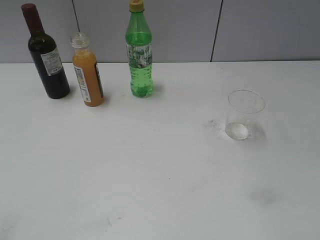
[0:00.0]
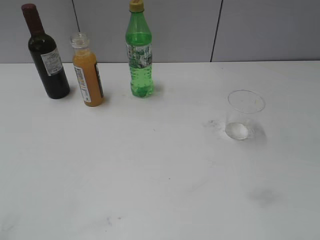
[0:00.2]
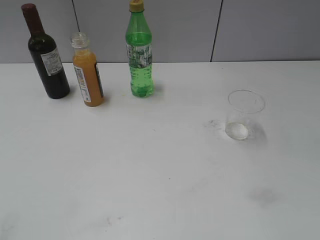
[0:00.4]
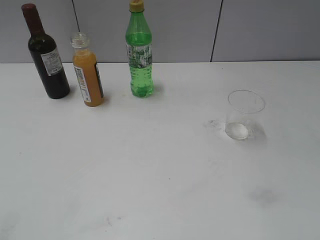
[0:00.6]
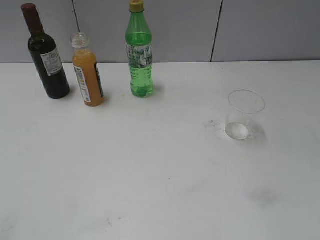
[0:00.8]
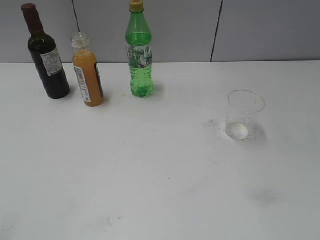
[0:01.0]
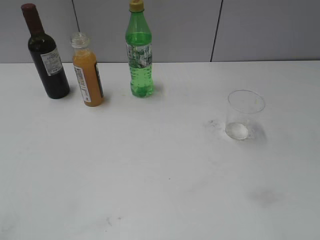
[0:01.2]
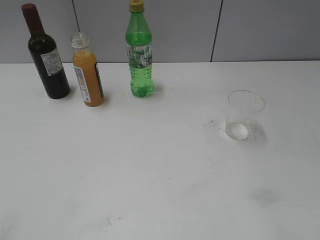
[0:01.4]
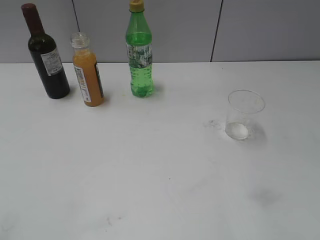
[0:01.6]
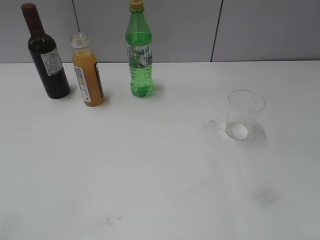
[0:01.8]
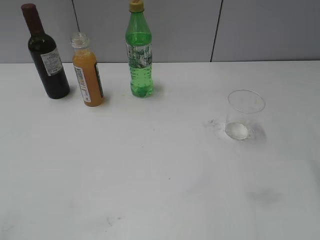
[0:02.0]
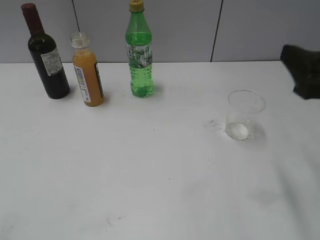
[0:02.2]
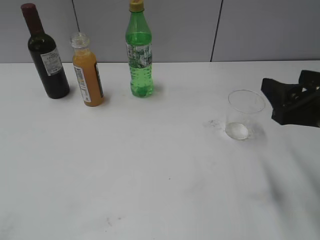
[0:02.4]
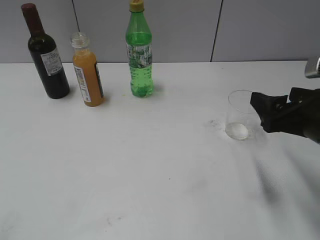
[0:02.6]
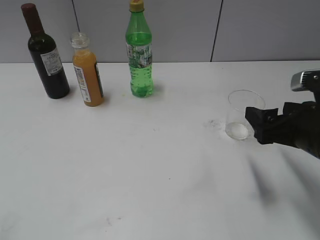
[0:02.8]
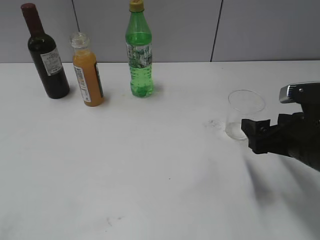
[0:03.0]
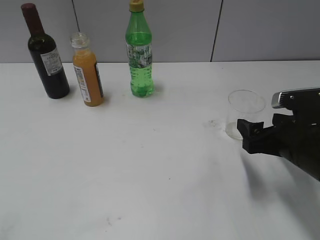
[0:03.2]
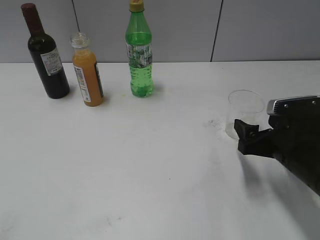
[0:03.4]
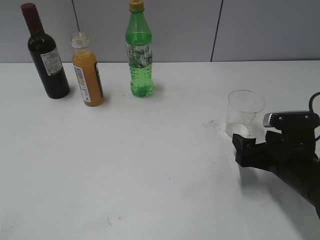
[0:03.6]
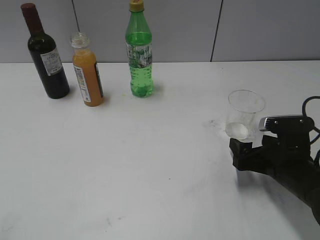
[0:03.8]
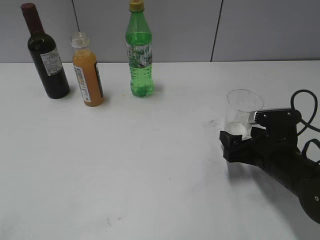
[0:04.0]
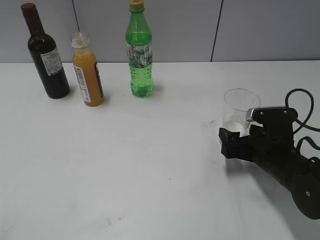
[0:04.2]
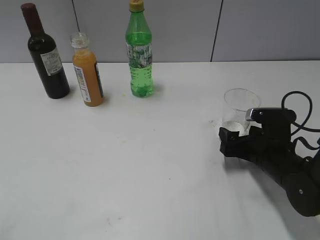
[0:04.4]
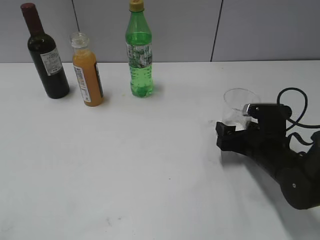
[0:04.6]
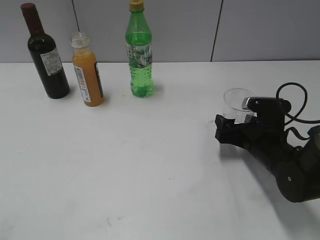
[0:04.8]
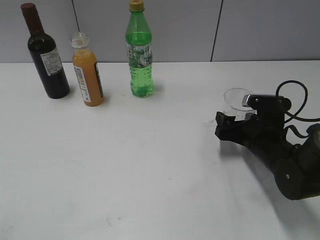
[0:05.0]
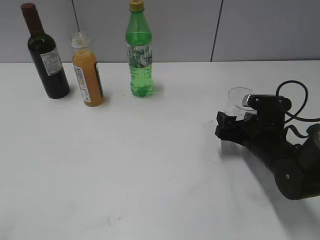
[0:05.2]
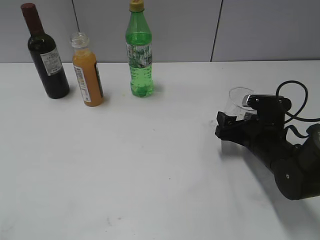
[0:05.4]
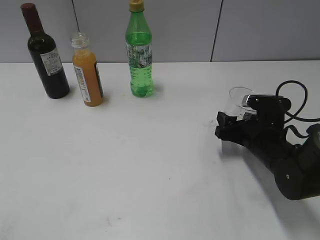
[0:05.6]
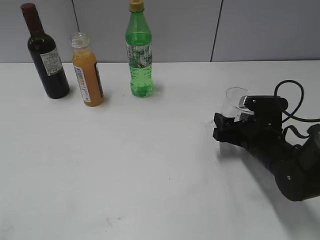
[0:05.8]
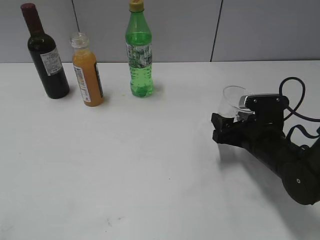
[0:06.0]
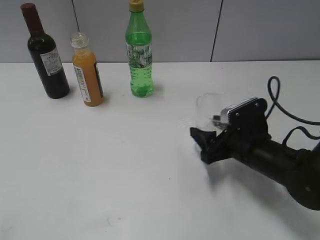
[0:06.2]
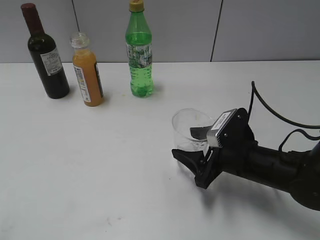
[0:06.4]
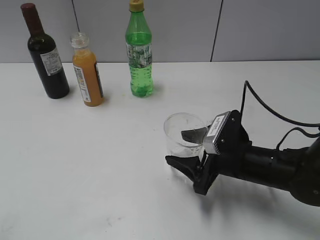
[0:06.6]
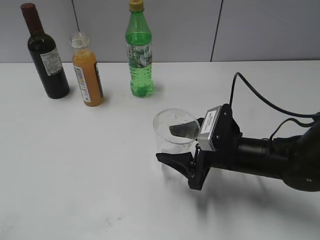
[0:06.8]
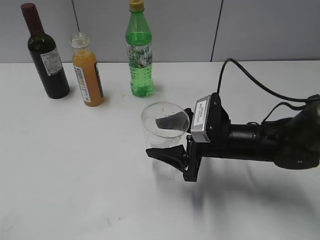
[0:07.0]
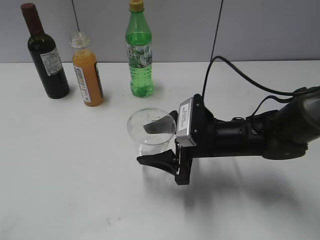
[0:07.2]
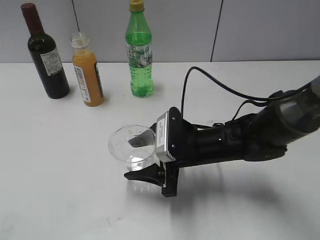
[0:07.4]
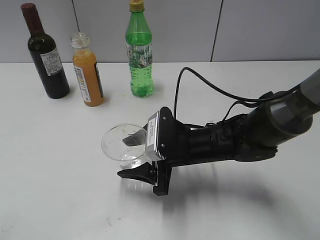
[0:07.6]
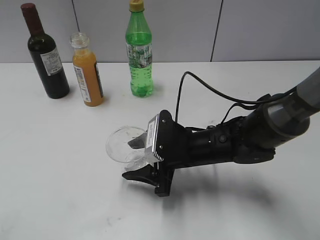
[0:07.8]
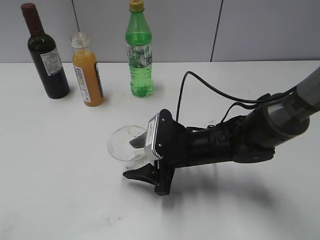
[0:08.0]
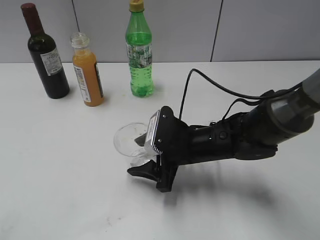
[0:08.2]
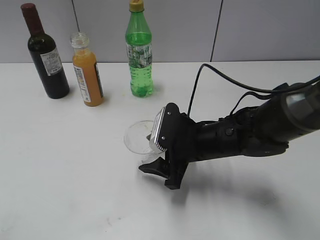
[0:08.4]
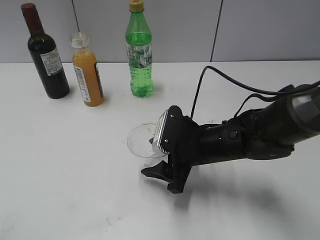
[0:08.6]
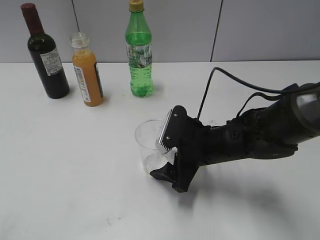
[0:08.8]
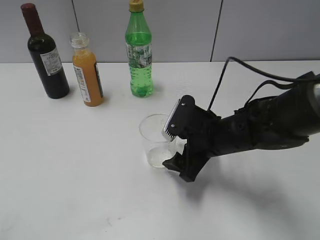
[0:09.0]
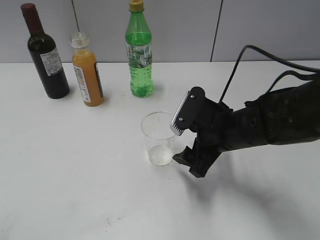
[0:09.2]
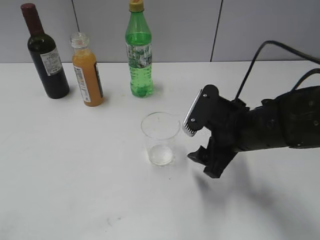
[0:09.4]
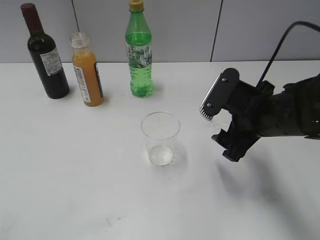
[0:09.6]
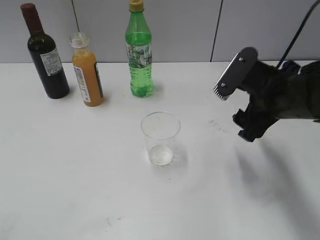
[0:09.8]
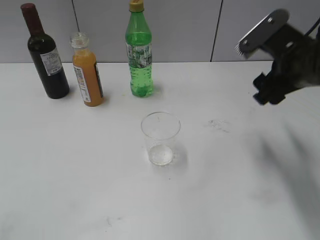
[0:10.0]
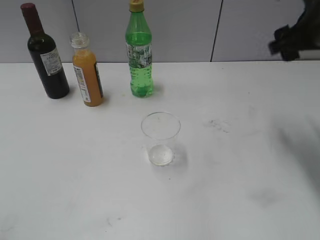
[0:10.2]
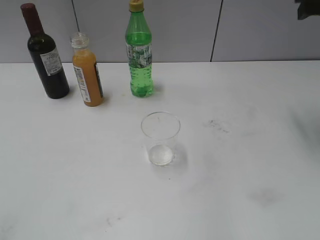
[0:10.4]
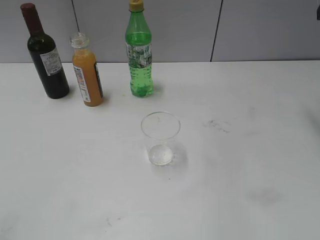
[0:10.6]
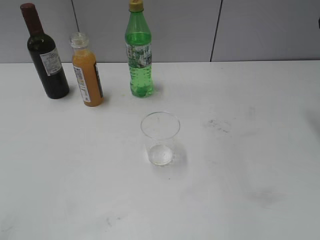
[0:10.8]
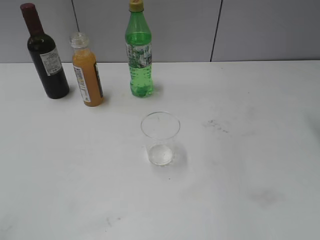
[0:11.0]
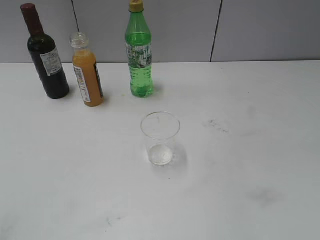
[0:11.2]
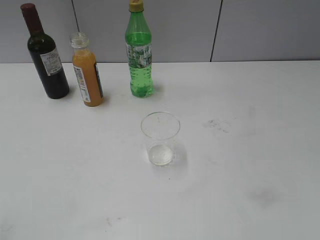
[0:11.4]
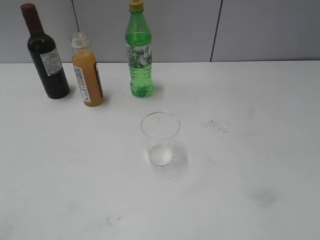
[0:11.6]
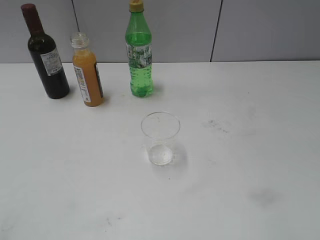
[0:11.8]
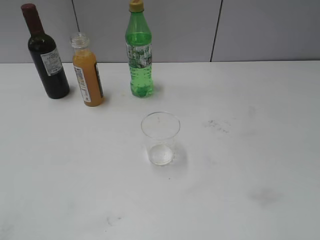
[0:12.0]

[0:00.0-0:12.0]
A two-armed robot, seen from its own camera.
Step, 0:02.2 to 0:05.6: Grasp the transparent cup with right gripper.
Step, 0:05.8 to 0:09.2: Place the transparent cup on the table with right gripper.
0:01.6 to 0:03.0: The right gripper shifts some 20 cm downward and forward, and opens.
0:03.0 to 0:04.4: The right gripper goes approximately 10 cm downward.
0:04.4 to 0:06.0: The right gripper closes its fingers.
0:06.0 to 0:07.6: The right gripper shifts approximately 15 cm to the left.
0:07.6 to 0:09.0: The right gripper opens.
0:09.0 to 0:10.4: The right gripper is displaced upward and to the right by some 30 cm, and closes its fingers.
0:10.4 to 0:12.0: The right gripper shifts about 30 cm backward.

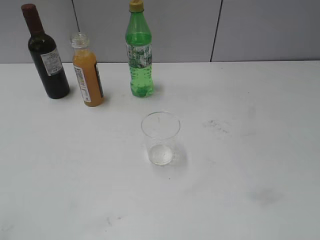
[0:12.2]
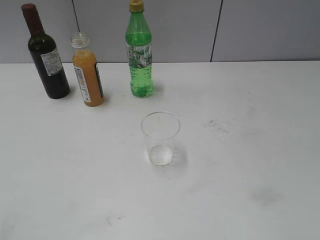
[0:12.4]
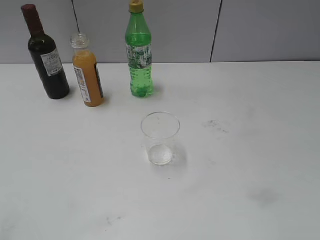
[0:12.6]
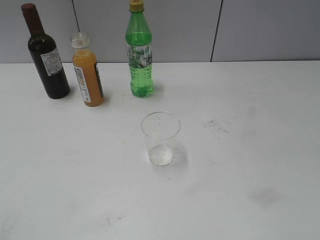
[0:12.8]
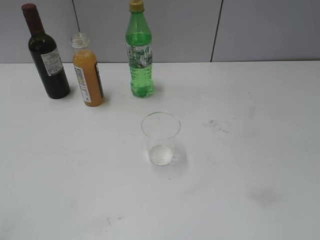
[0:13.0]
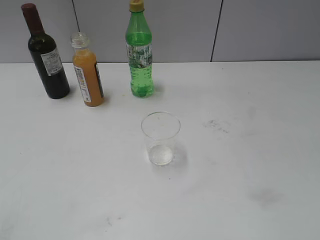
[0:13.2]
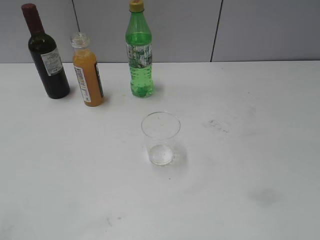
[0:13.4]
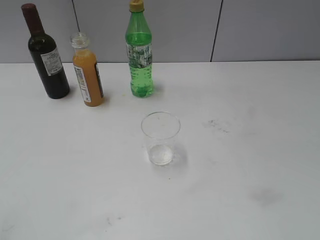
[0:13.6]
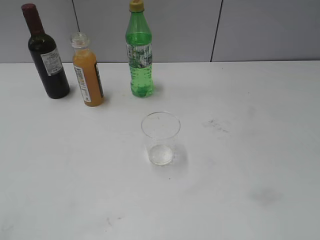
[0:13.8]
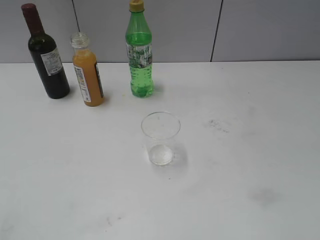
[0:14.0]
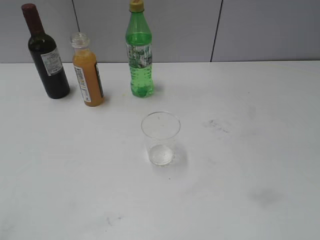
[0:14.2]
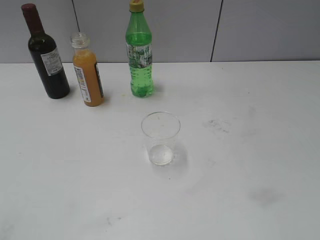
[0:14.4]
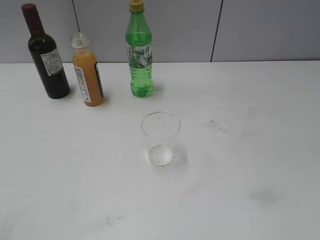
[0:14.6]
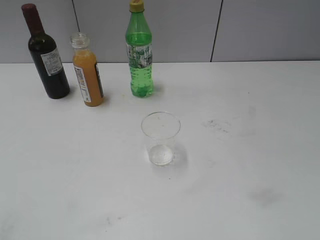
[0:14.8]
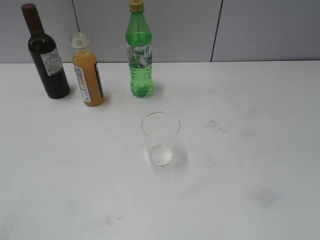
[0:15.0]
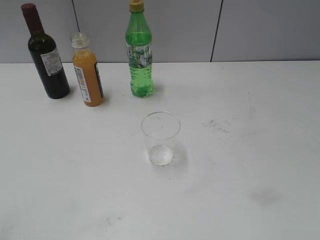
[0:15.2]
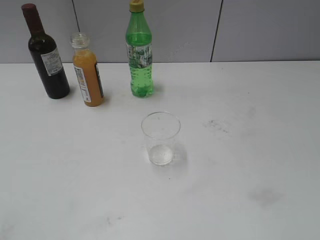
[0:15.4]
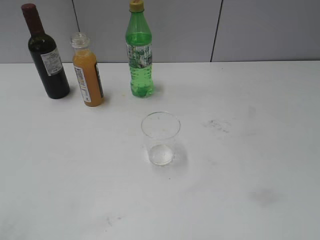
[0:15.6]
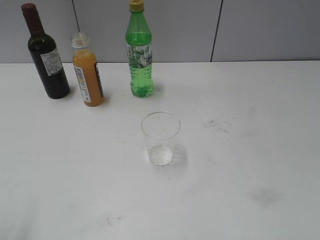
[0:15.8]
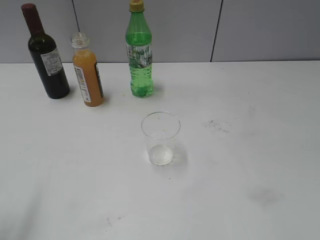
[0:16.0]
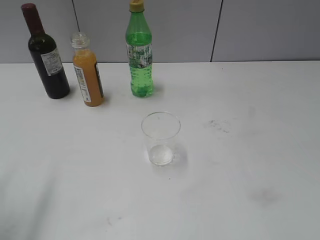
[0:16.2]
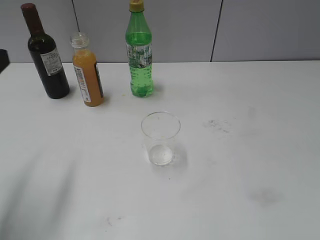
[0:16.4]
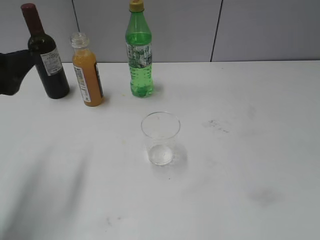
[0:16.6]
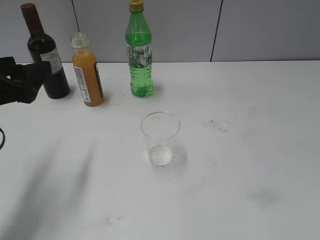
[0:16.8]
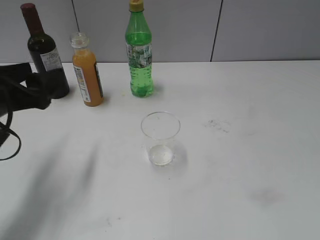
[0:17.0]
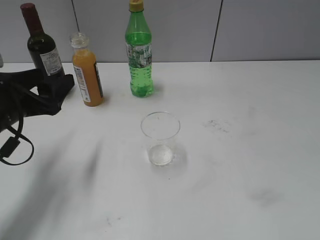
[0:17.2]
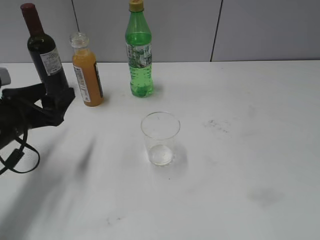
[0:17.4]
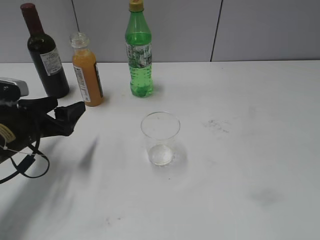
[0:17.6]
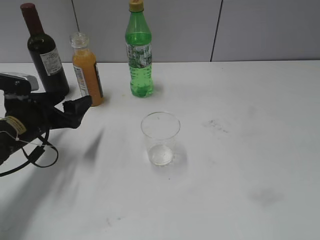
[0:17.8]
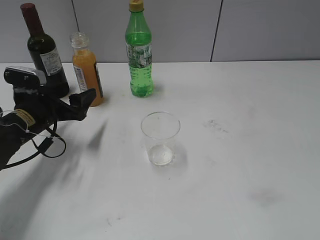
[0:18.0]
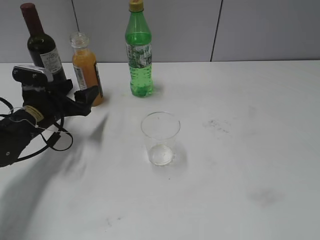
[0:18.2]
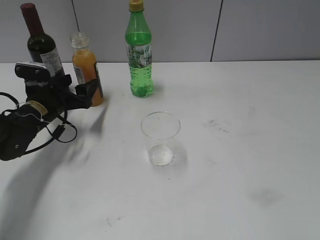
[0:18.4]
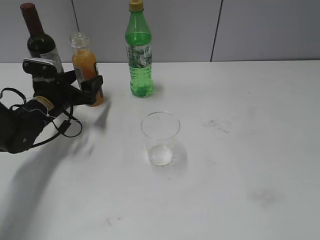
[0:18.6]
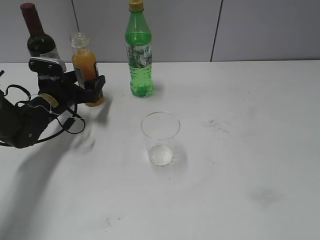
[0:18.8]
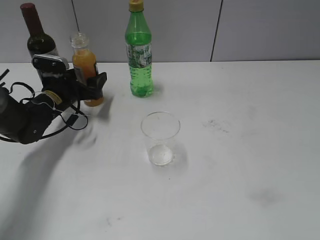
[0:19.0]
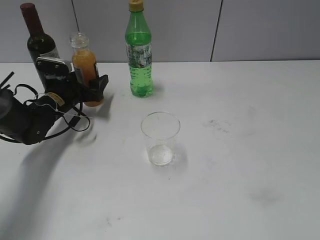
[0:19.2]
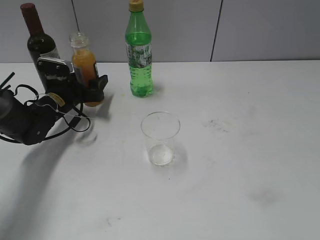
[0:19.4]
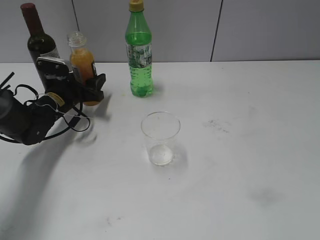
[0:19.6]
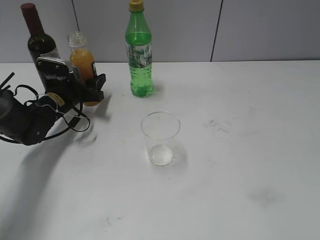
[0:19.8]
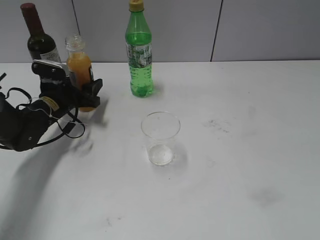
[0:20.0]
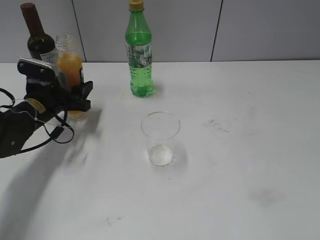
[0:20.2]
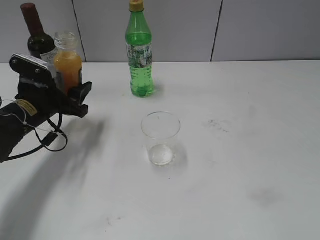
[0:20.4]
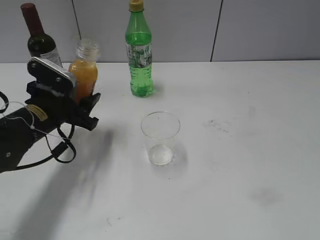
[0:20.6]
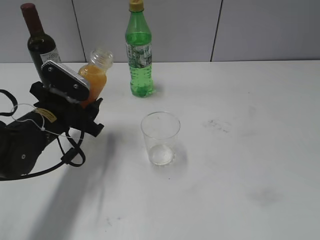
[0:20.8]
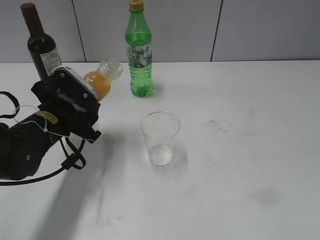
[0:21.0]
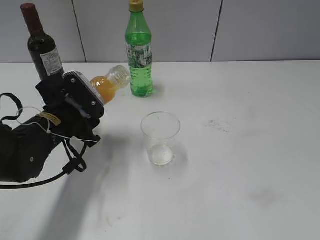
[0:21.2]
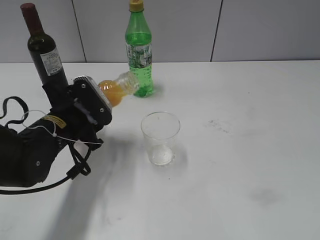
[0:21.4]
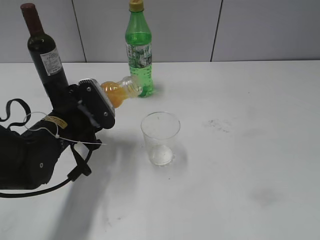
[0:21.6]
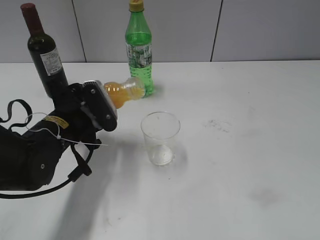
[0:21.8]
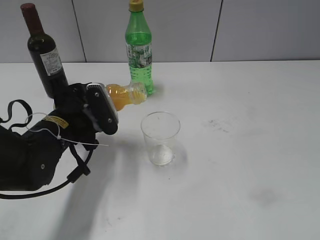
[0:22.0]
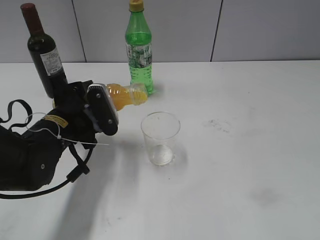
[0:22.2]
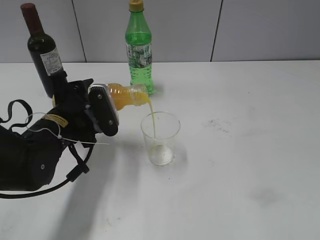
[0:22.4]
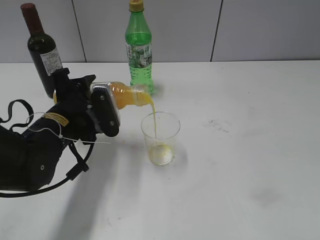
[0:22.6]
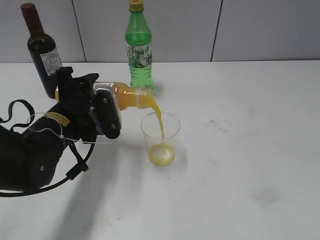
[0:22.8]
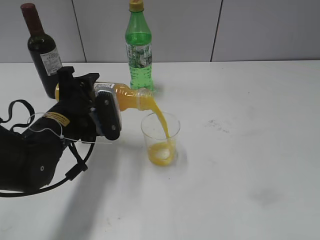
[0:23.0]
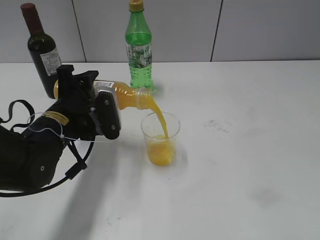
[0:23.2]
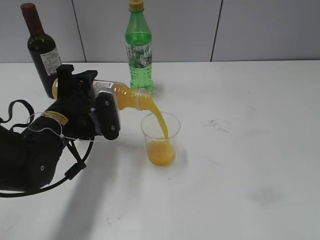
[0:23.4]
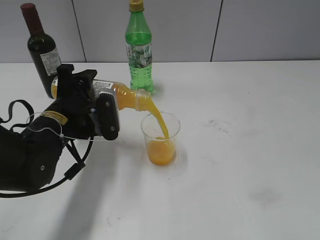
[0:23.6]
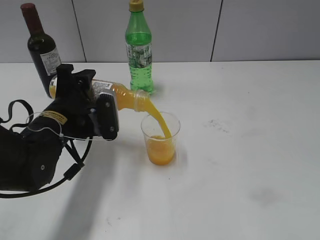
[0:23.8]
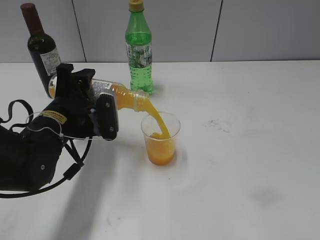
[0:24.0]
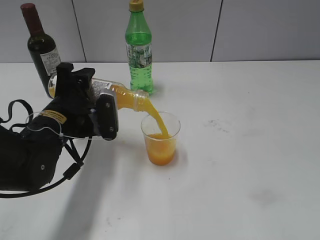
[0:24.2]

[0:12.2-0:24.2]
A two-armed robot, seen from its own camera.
Step, 0:12.2 to 0:19.8: Grasp the bottle with orange juice with left gripper.
0:15.2 to 0:16.6: The left gripper shifts roughly 20 cm forward.
0:16.6 to 0:18.2: The left gripper is displaced downward and forward by approximately 20 cm.
0:18.2 to 0:19.8: The left gripper heads forward, covering some 5 cm, and closes its fingers.
0:19.8 to 0:21.2: The left gripper travels backward and upward by roughly 15 cm.
0:22.6 to 0:24.2: The grippers stay close to where they were, moving slightly.
